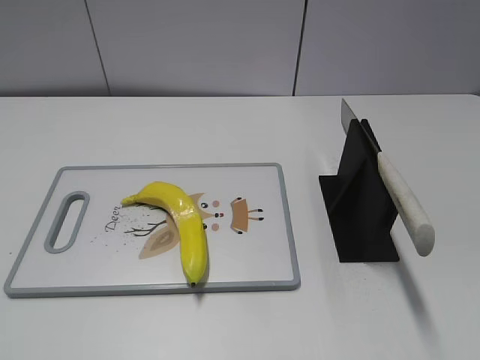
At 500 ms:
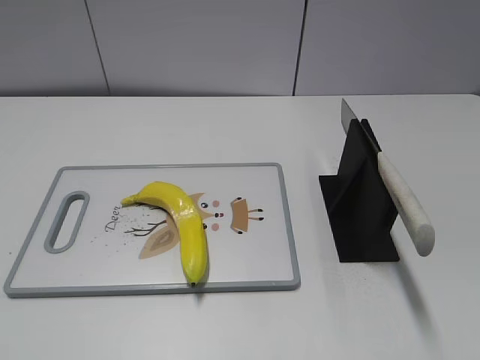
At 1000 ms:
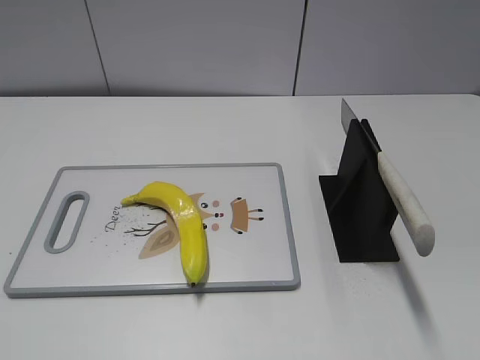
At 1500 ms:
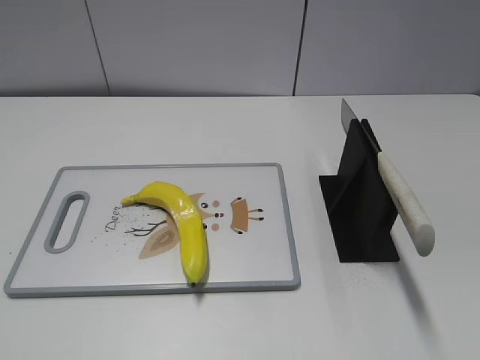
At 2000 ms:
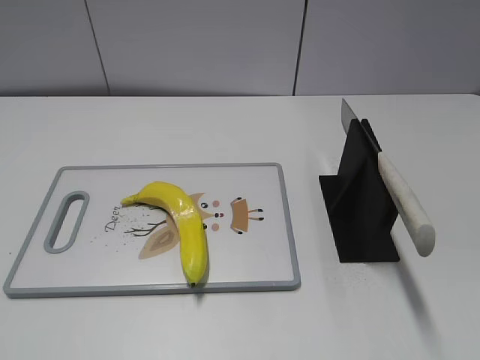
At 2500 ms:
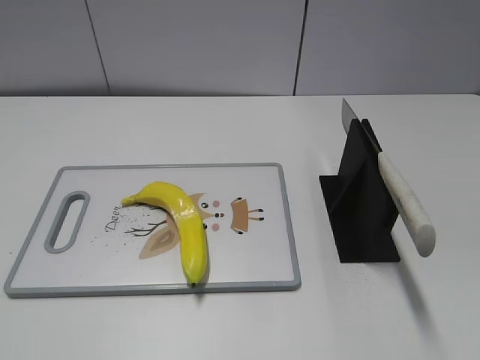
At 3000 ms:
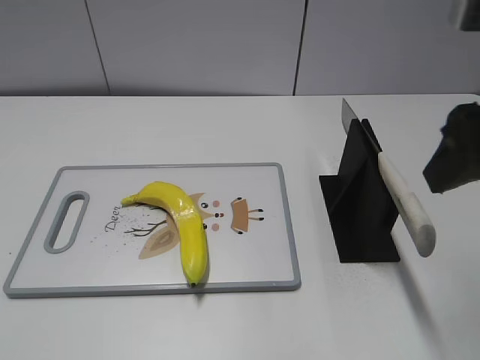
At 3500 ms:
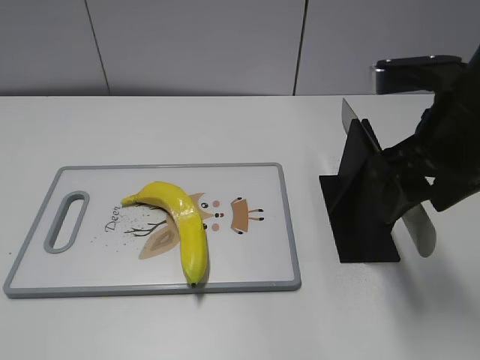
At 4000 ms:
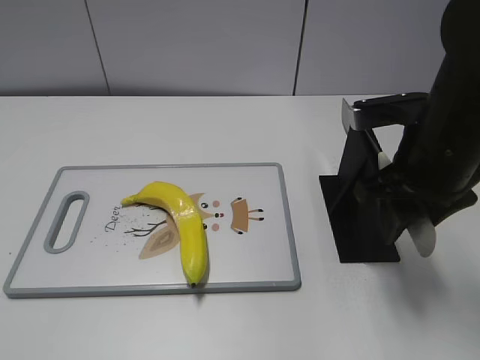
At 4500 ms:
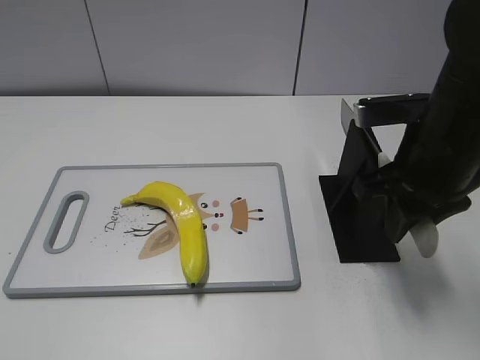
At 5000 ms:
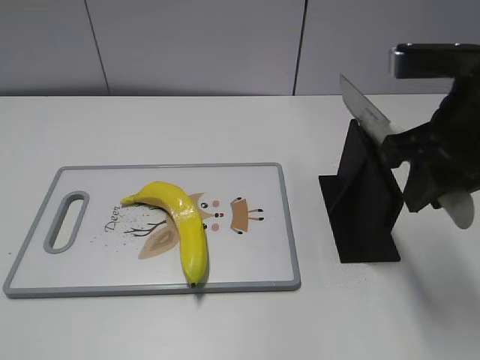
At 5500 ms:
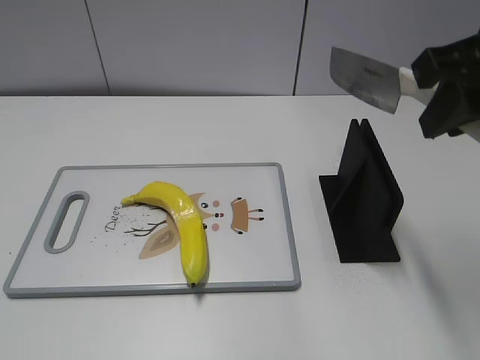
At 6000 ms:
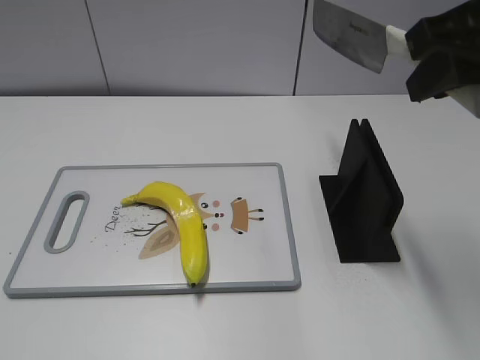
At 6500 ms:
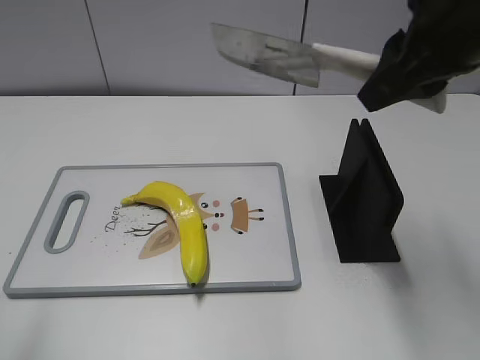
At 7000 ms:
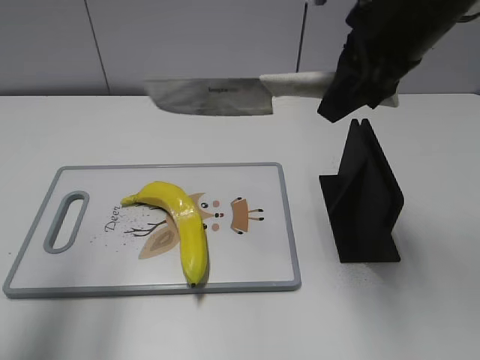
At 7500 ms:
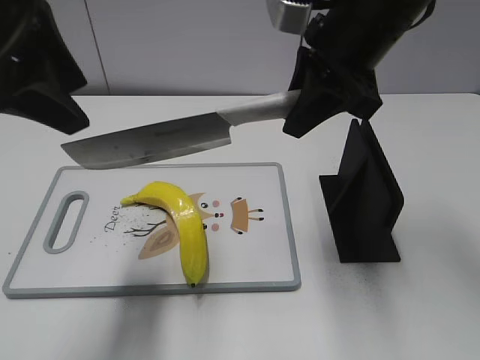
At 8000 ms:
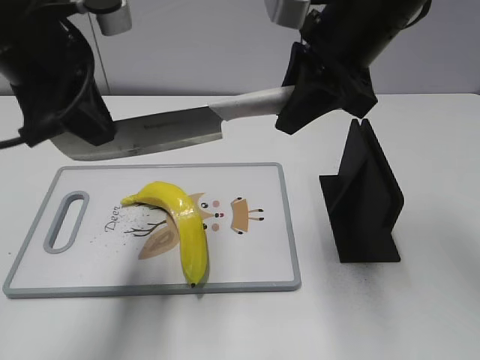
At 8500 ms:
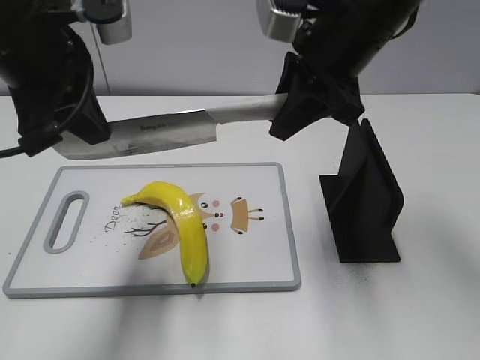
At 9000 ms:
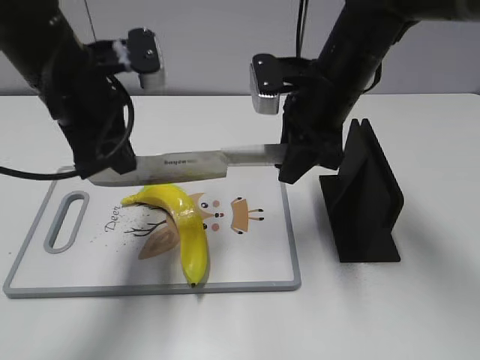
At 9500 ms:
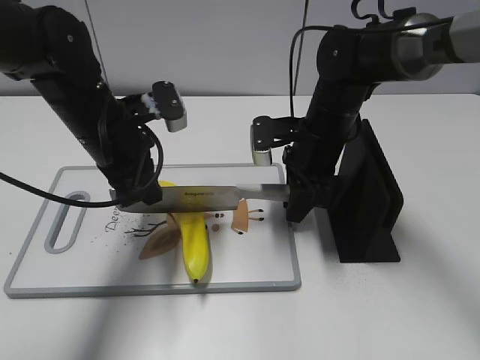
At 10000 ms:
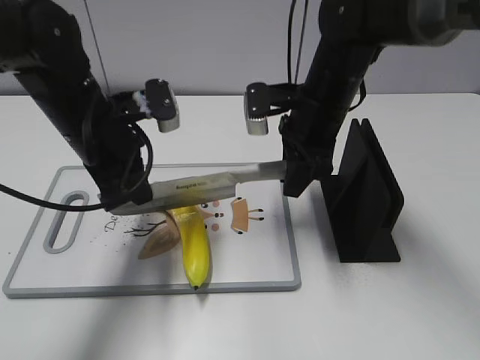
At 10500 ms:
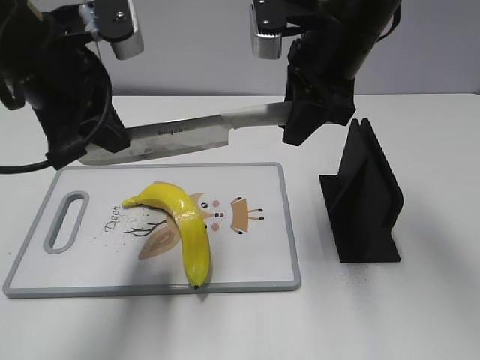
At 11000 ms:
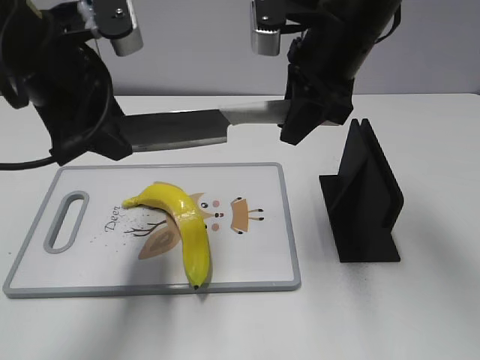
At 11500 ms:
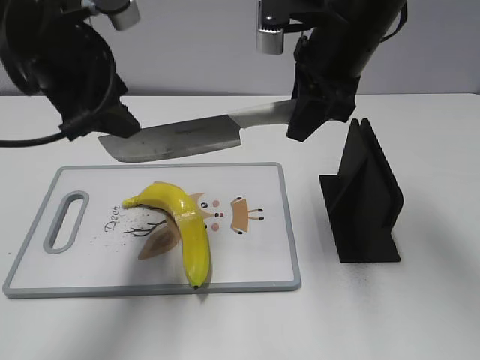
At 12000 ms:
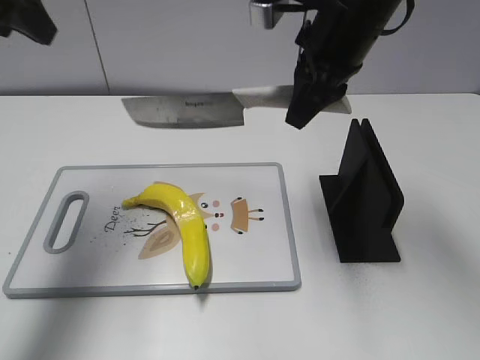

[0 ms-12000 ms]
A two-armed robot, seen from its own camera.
Task of the whole recording: cut plastic banana.
Step, 0 ms to 5000 ms: Grab the knife handle with your right hand.
Step, 5500 ms to 10000 ms: Lift the knife with your right hand.
2000 ms to 4000 ms: The right gripper is displaced forward and to the left by approximately 25 cm, and closes its fingers.
4000 ms to 6000 ms: The right gripper moves upward, approximately 15 cm, and closes up.
6000 ms to 8000 ms: The right gripper travels forward and to the left by about 10 cm, while the left gripper moves forward and to the right, some 30 cm, and closes up.
8000 ms to 10000 ms: The right gripper travels downward and forward by approximately 15 cm, while the left gripper shifts about 10 cm downward.
10000 ms to 12000 ms: The right gripper is displaced upward by about 10 cm; the left gripper heads upward and to the left, covering some 20 cm, and opens up.

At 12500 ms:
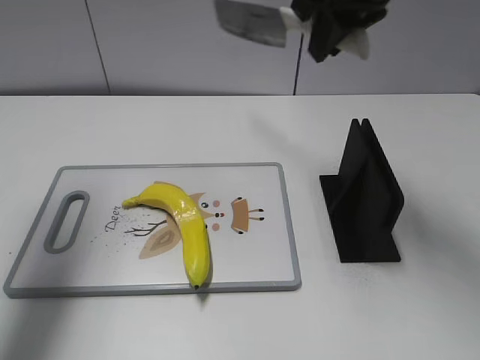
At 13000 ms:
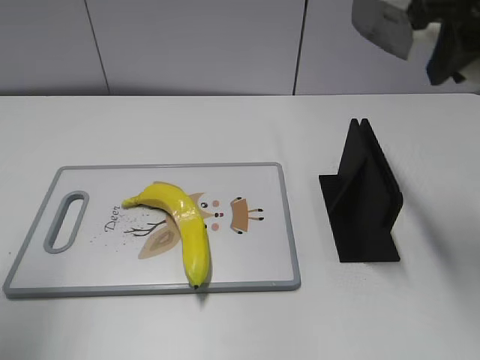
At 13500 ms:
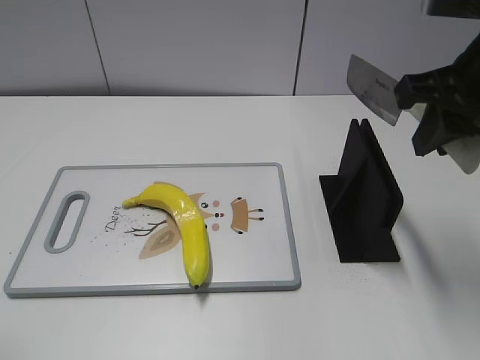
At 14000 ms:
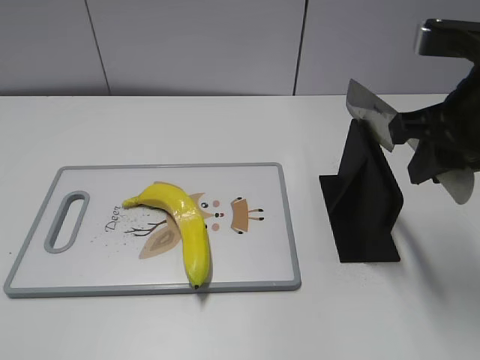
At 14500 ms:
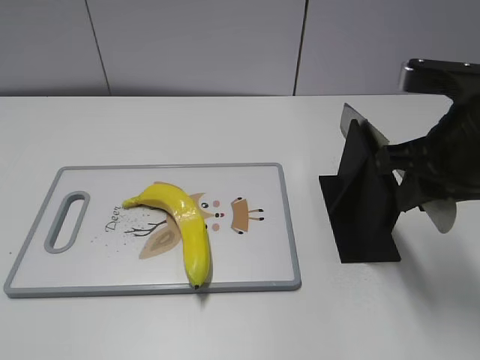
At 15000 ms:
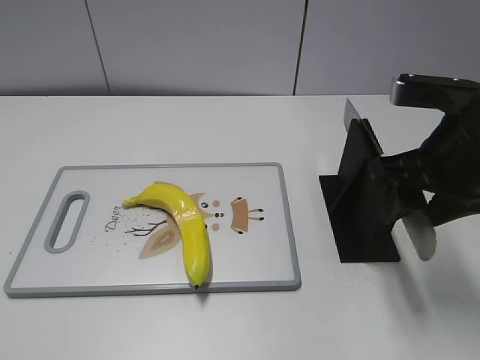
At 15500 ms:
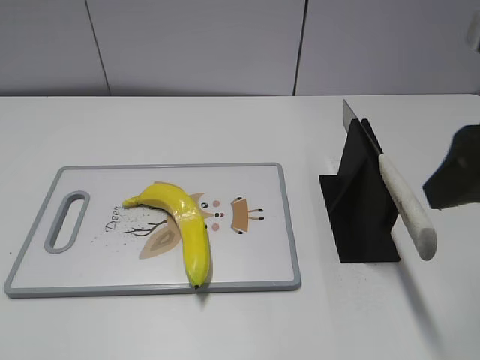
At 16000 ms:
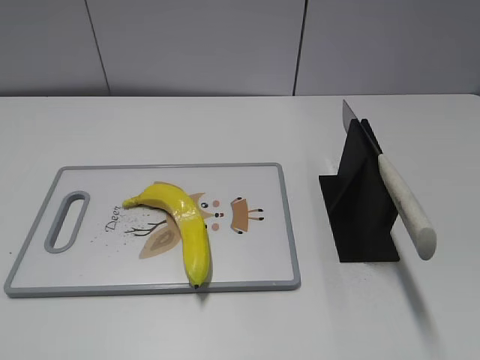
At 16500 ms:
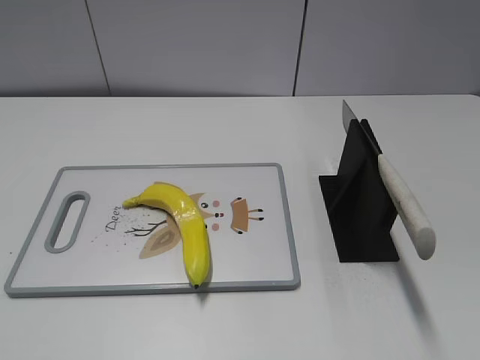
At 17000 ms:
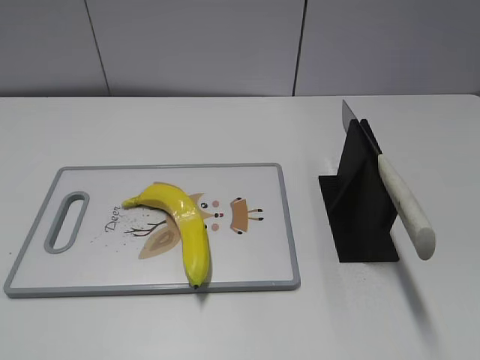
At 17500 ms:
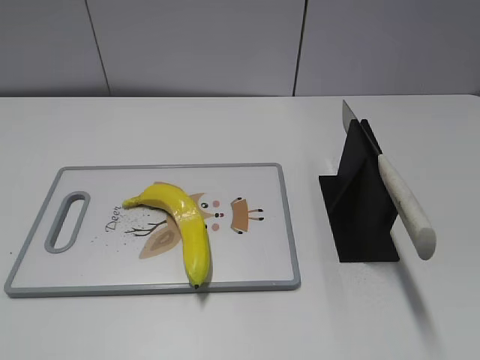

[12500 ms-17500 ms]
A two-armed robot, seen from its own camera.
Task of the whole recording: cut plastic banana.
Step, 12500 ms to 13500 ms: Secure the blade with your left hand.
Step, 14000 ms to 17500 ms: Place the knife on the storage rack with your right hand.
12500 ms to 15000 ms: The left gripper moves backward, approximately 30 cm. Meanwhile the right gripper goes roughly 20 cm backward, downward and to the right, and opens its fingers.
15000 ms to 17500 ms: The right gripper is displaced backward by about 25 cm.

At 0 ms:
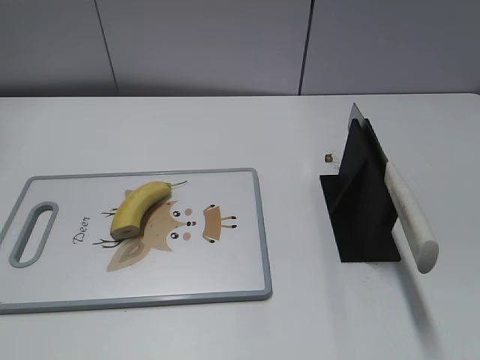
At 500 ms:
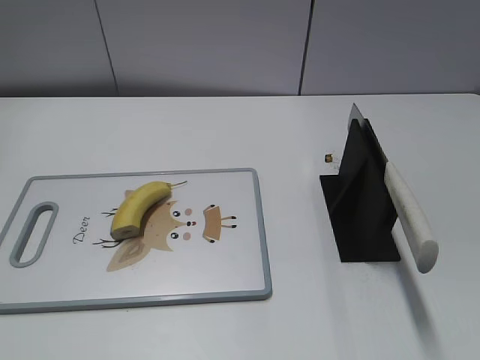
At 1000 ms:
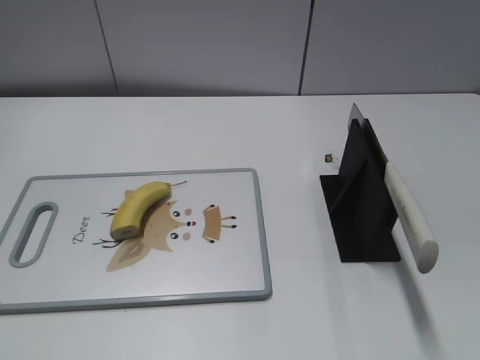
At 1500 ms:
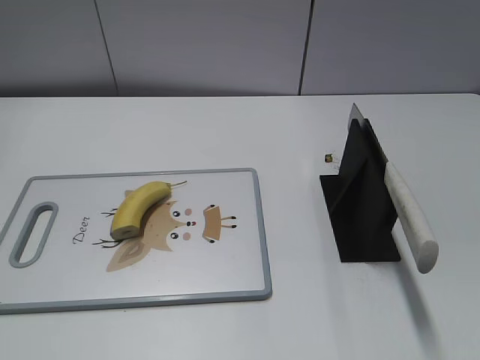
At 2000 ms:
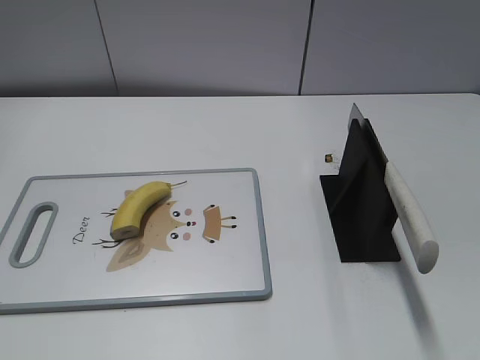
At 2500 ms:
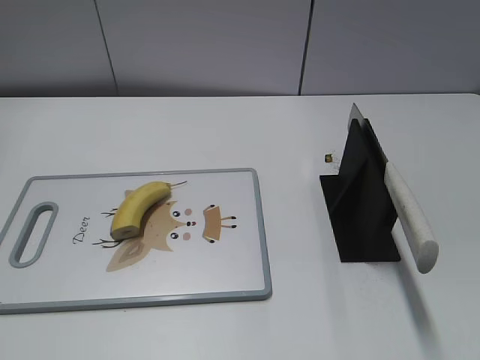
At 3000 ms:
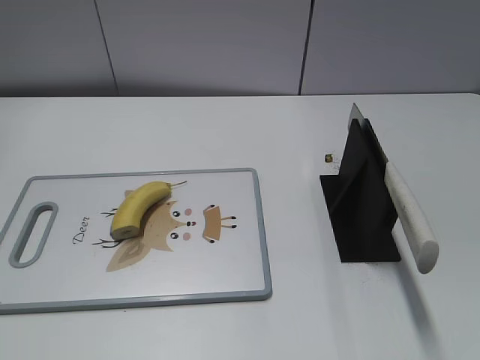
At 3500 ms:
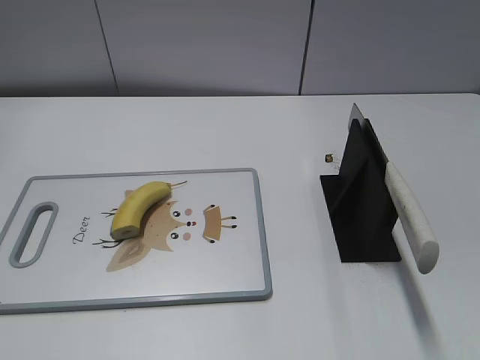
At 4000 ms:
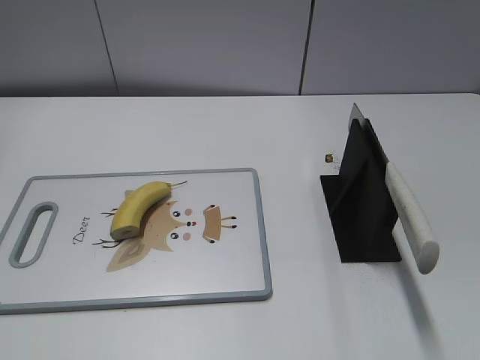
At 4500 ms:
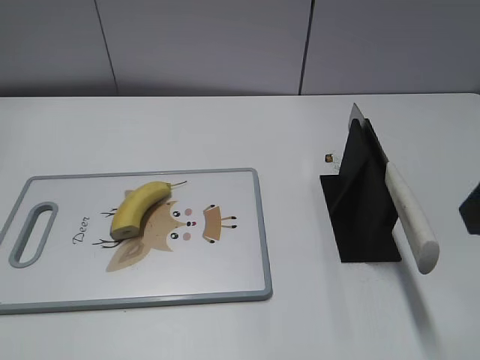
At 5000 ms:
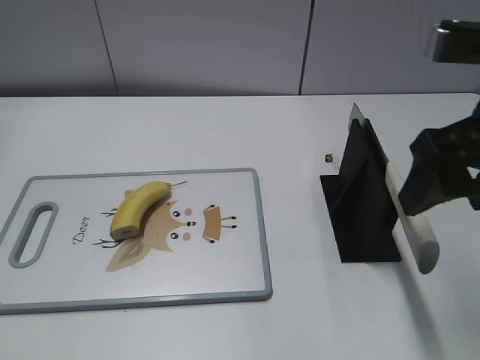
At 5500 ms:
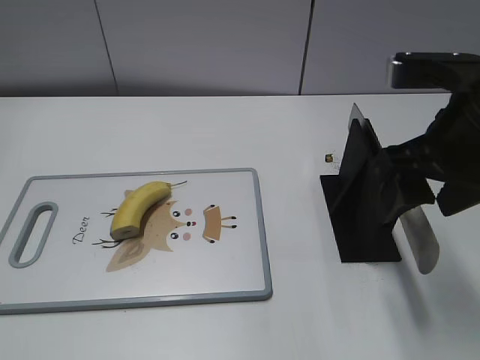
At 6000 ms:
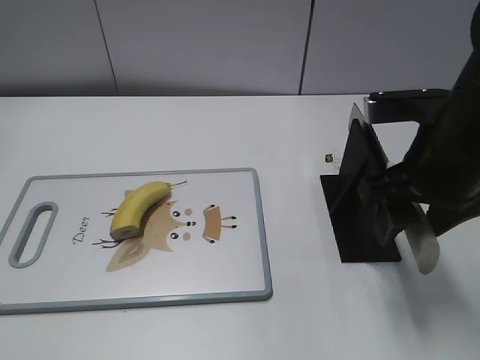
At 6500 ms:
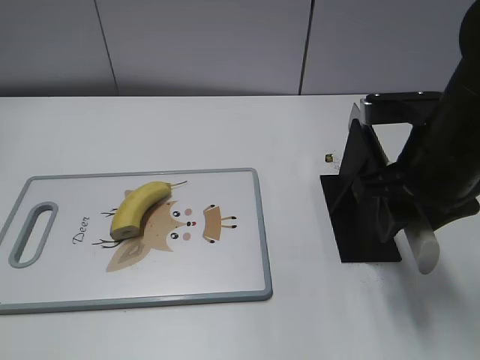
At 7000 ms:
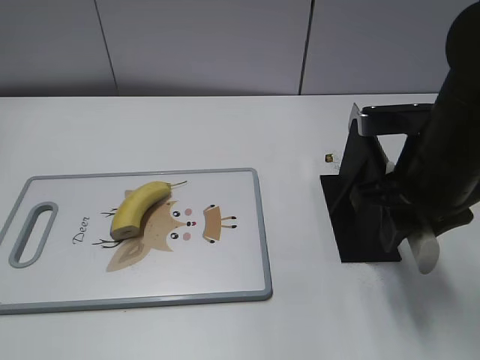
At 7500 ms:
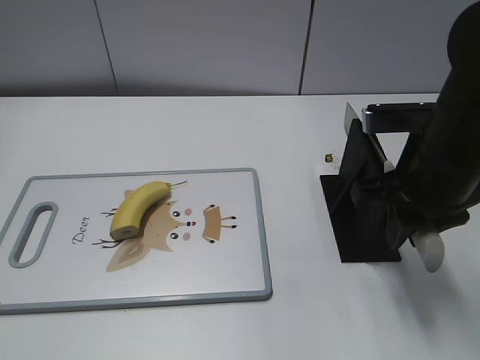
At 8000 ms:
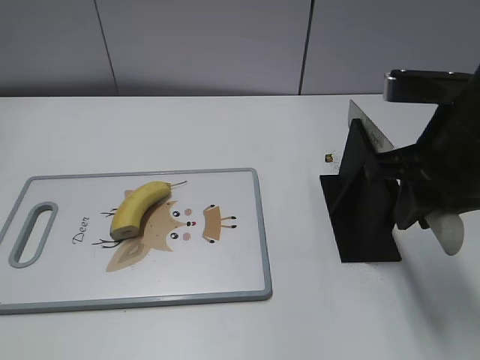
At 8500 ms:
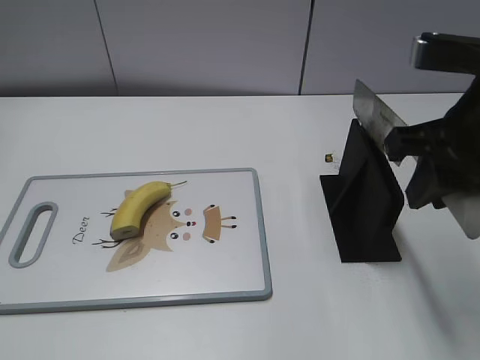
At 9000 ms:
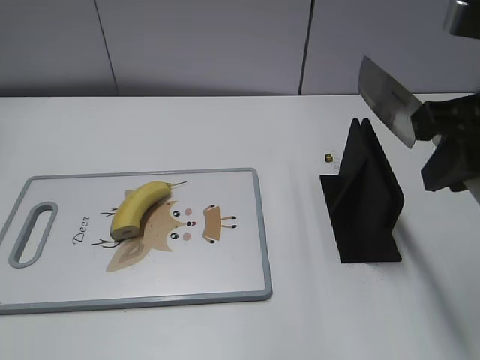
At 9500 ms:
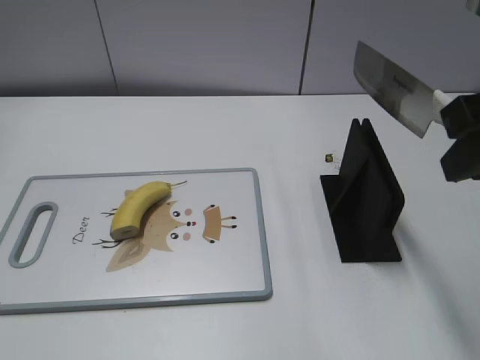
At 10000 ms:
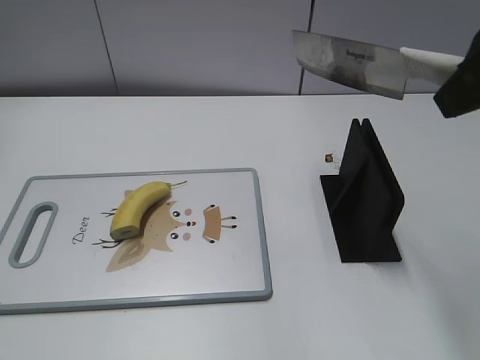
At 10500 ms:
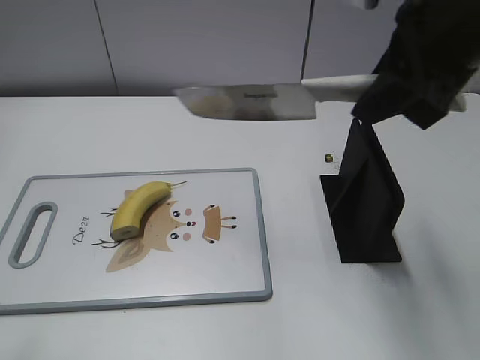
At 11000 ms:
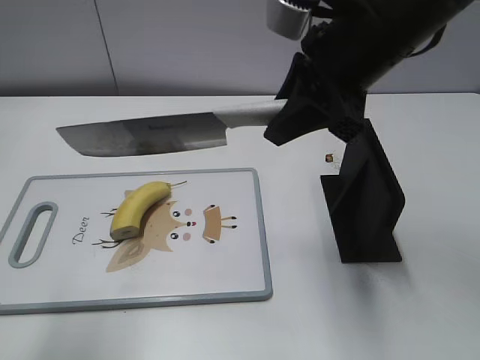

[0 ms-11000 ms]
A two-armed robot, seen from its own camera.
Task of the whole recording: cut banana.
Step, 0 ms to 9000 ms: Grab the knife handle with your right hand.
3500 ms to 5500 ms: The right gripper heads forward and to the left, covering roughly 20 cm.
5500 ms to 7500 ms: The right gripper moves downward, about 5 cm, and closes its fingers.
7500 ms to 9000 ms: The right gripper travels upward by roughly 10 cm.
9000 ms to 11000 ms: The right gripper goes about 15 cm forward and to the left, while the left gripper goes about 20 cm forward and upward.
